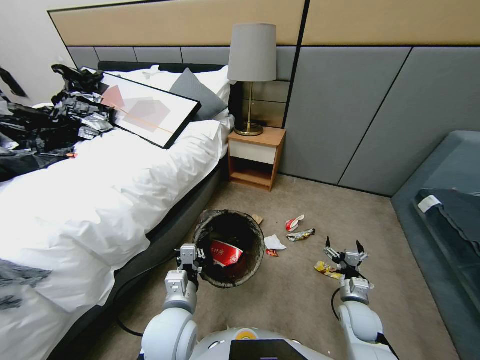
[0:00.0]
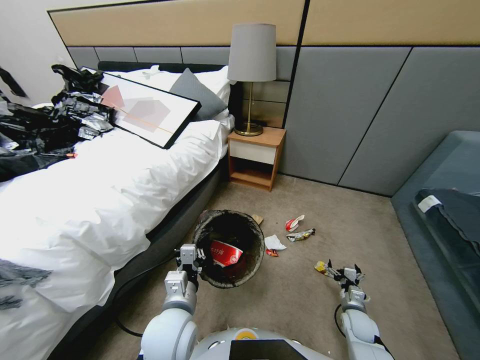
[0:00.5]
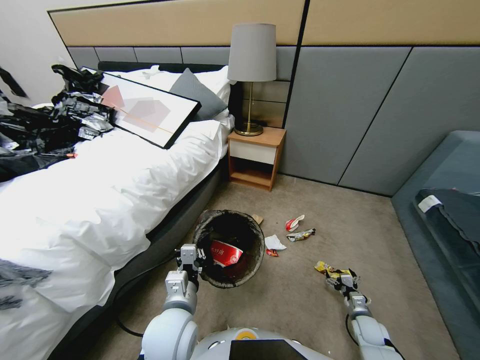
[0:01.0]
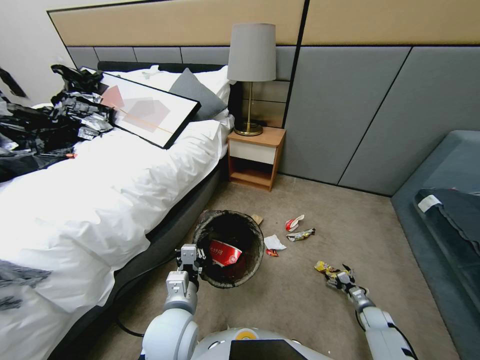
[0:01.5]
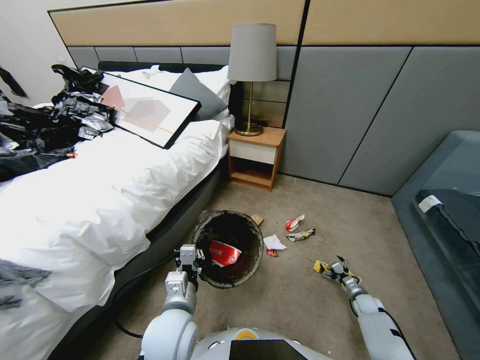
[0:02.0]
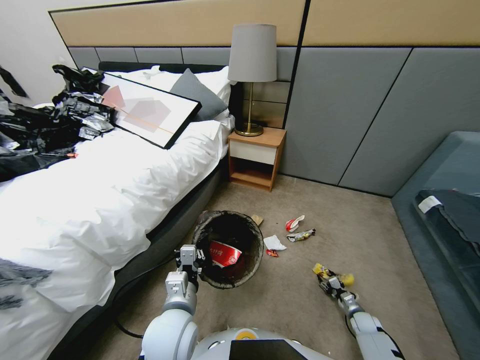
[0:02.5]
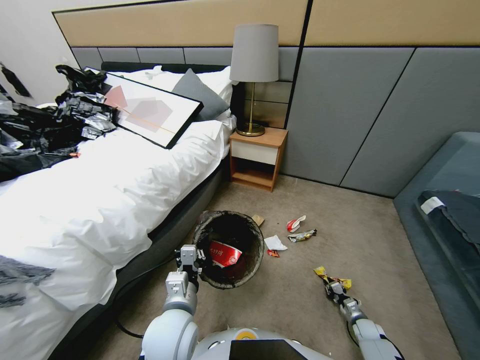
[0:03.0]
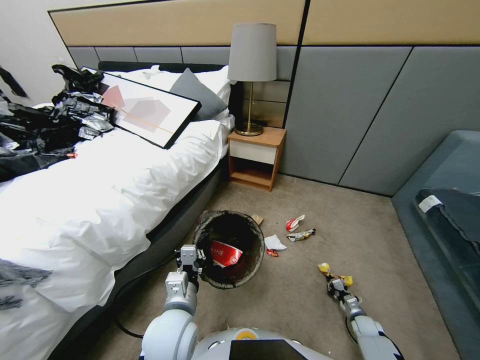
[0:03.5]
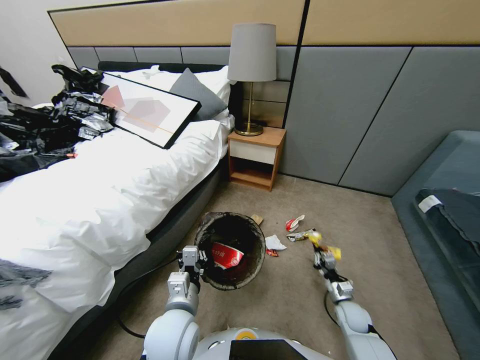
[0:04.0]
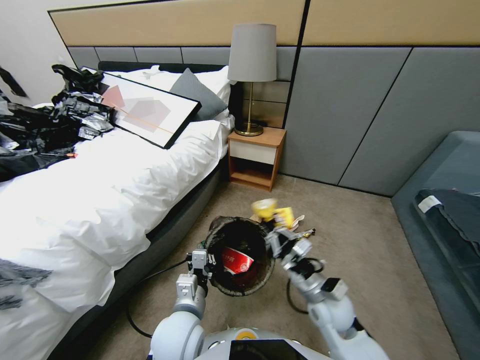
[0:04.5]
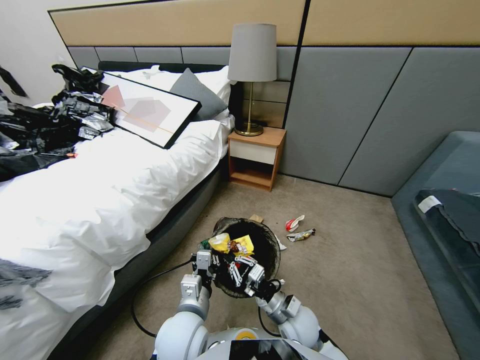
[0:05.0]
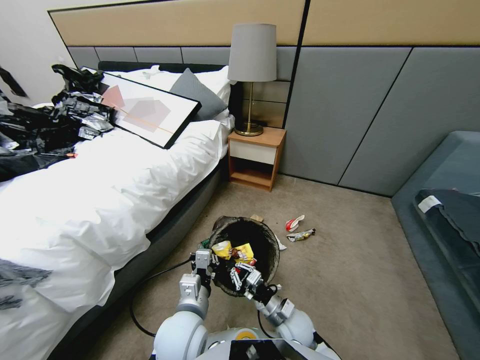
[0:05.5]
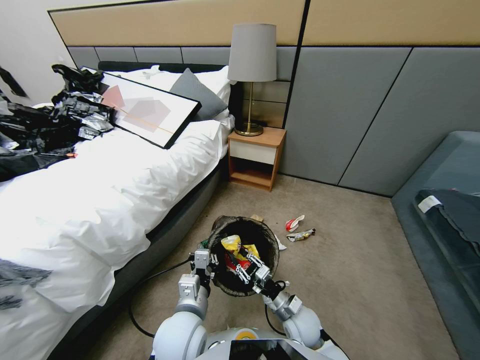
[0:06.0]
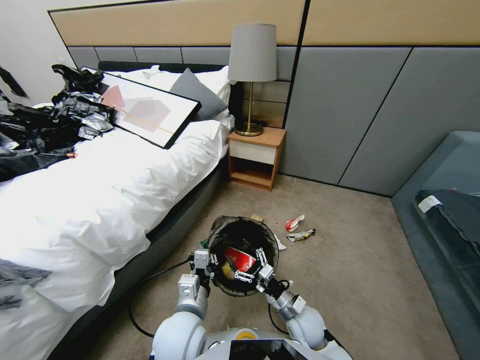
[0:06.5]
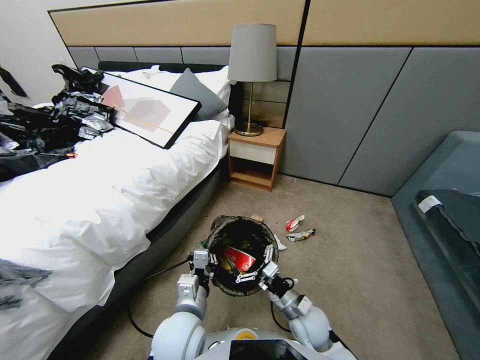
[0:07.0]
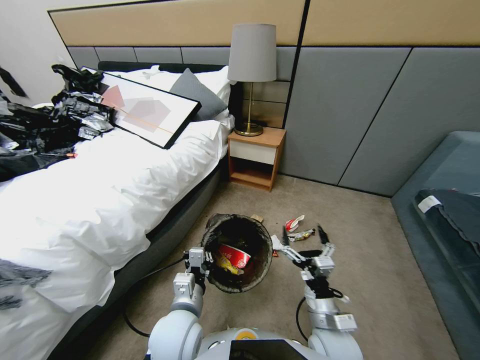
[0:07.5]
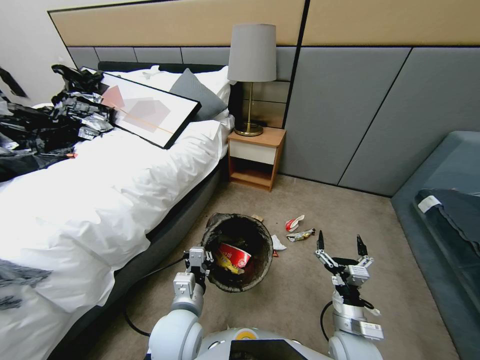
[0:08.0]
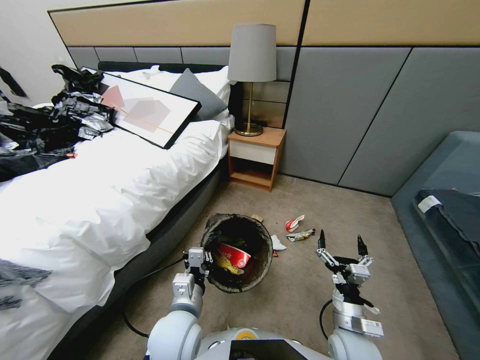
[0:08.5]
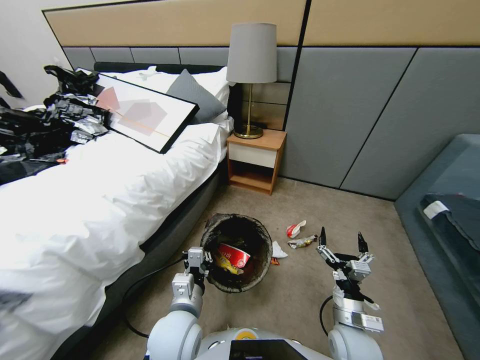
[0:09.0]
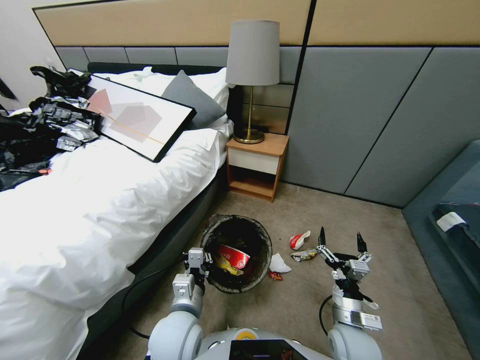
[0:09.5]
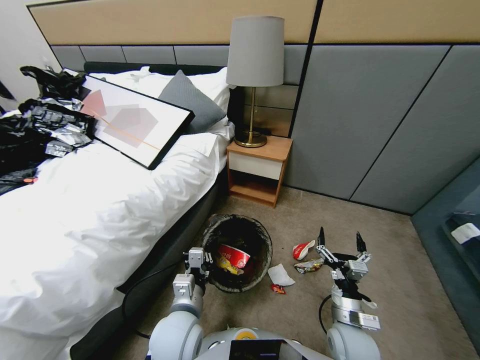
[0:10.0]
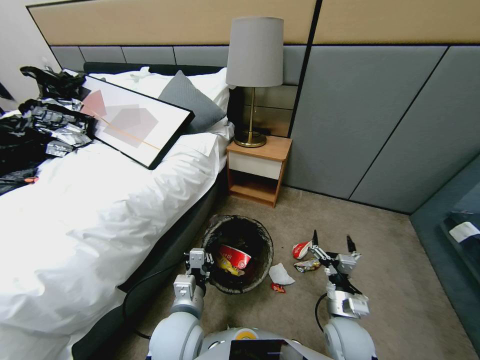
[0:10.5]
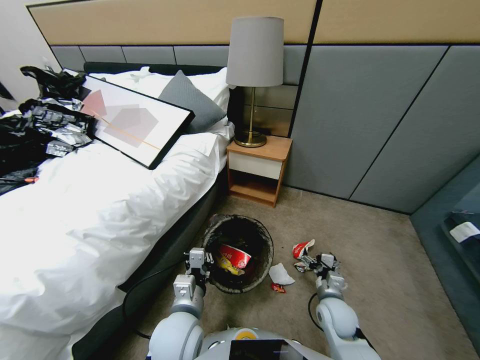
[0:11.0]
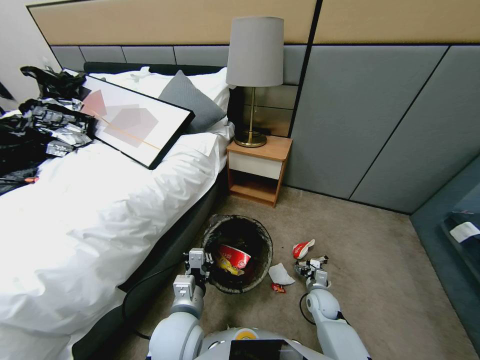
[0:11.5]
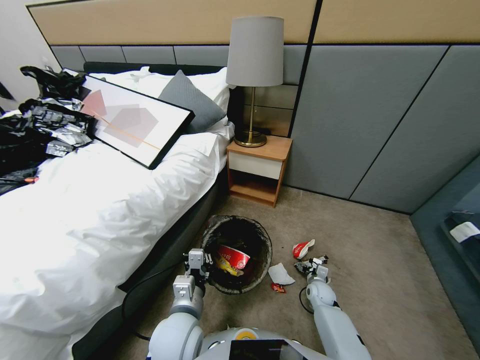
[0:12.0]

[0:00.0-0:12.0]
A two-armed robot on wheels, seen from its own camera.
Task of the whole recording: Pick up the trash bin, then pick up the garbage from the floor and place it into the trash bin.
0:00.0 to 0:02.0: The right gripper travels downward and to the right by roughly 20 cm.
0:02.0 to 0:04.0: The right gripper moves to the left and upward, some 25 cm, and closes.
0:04.0 to 0:06.0: The right gripper heads to the left, covering roughly 15 cm, and opens up.
0:06.0 to 0:08.0: The right gripper shifts about 10 cm to the right, backward and upward, and opens.
0:10.0 to 0:12.0: The right gripper goes about 25 cm downward and forward.

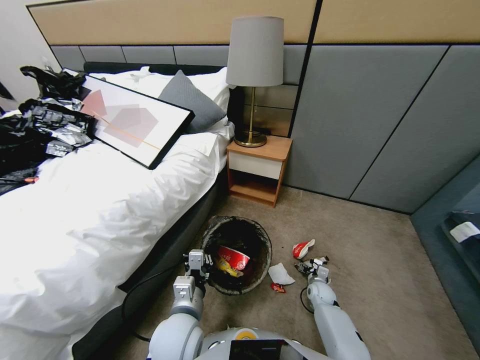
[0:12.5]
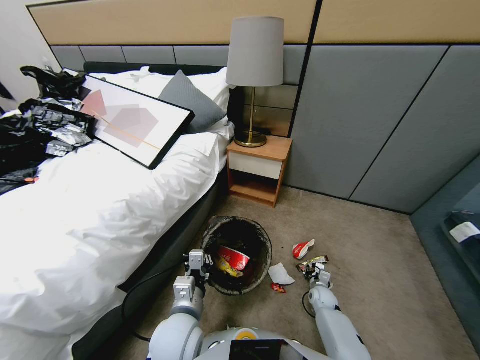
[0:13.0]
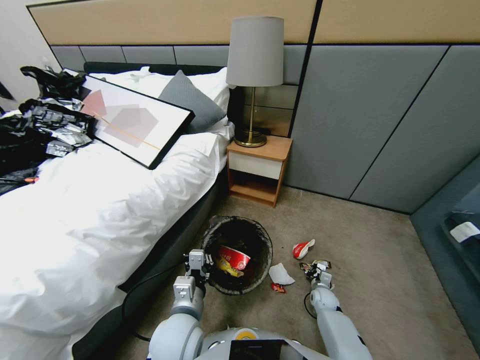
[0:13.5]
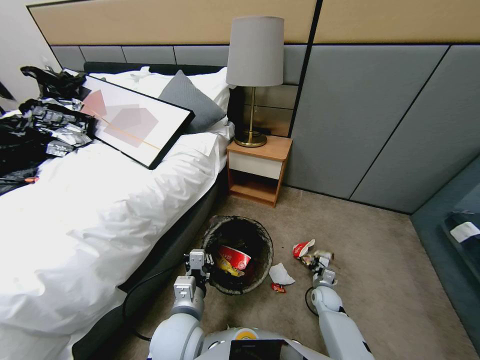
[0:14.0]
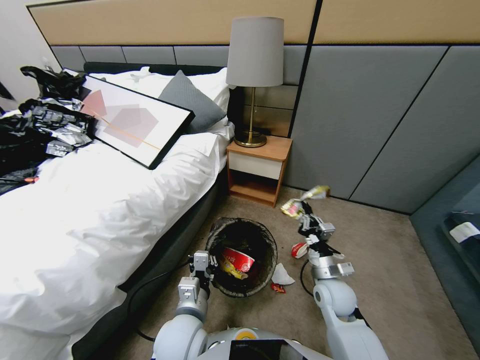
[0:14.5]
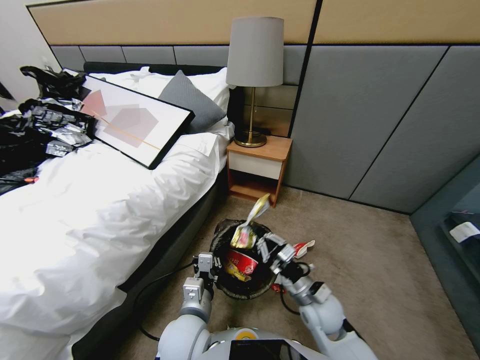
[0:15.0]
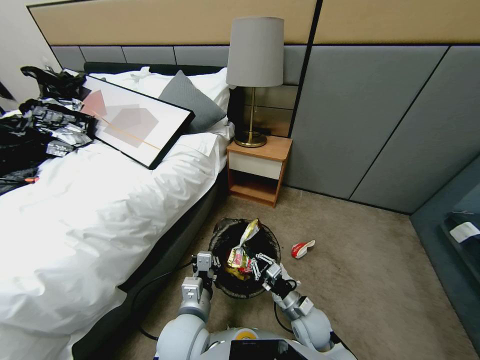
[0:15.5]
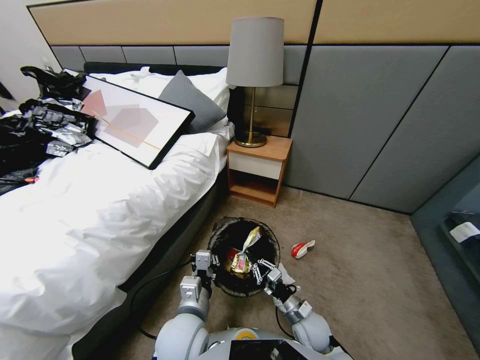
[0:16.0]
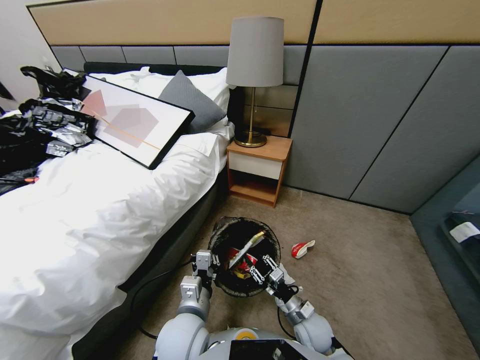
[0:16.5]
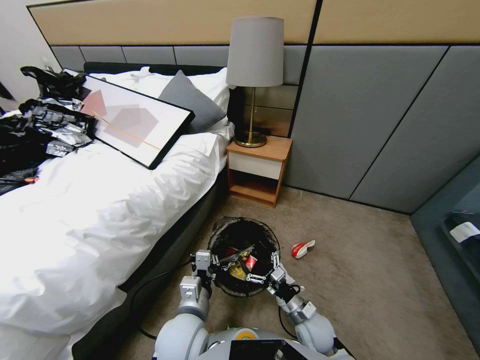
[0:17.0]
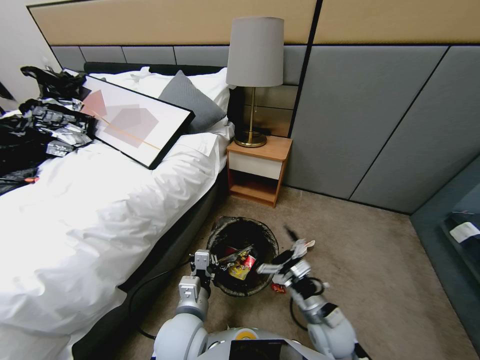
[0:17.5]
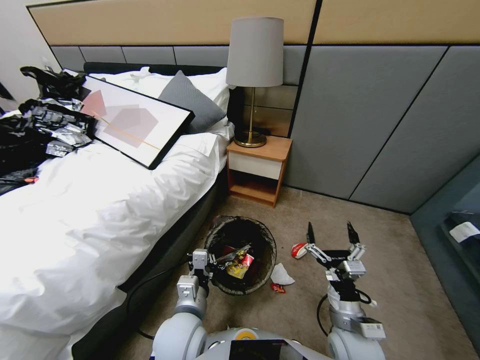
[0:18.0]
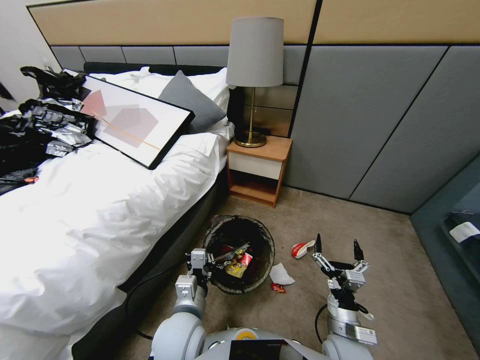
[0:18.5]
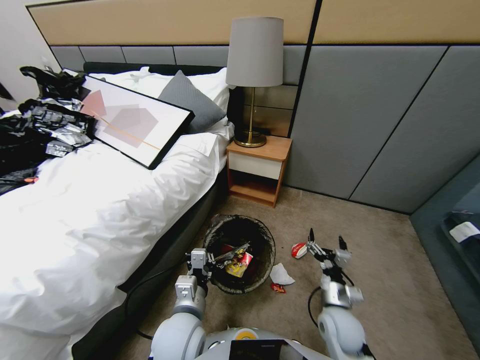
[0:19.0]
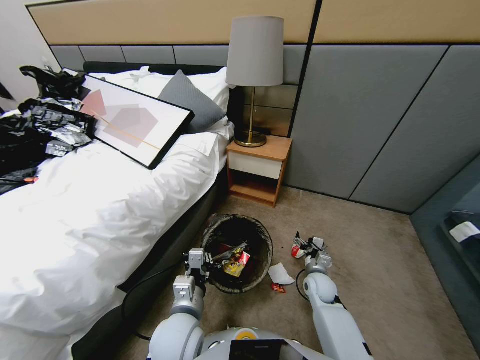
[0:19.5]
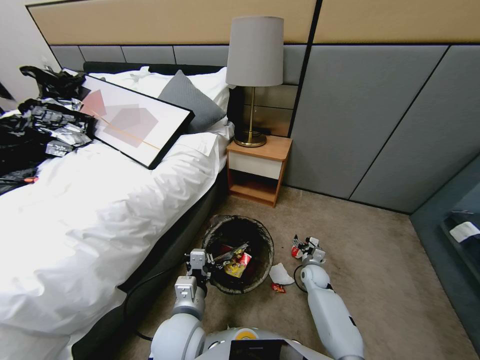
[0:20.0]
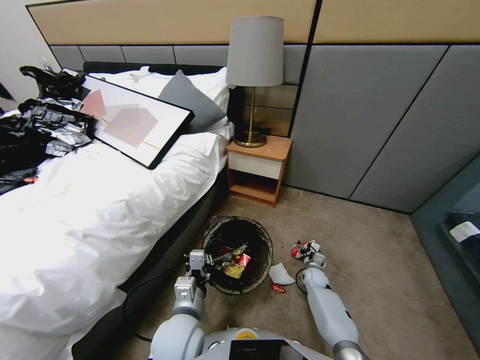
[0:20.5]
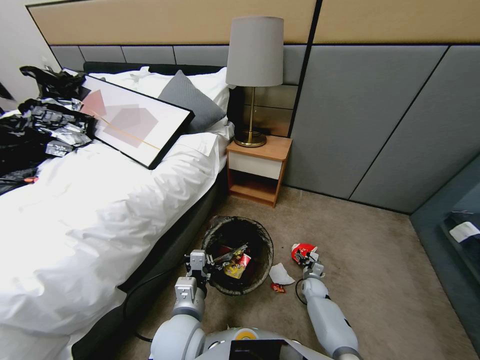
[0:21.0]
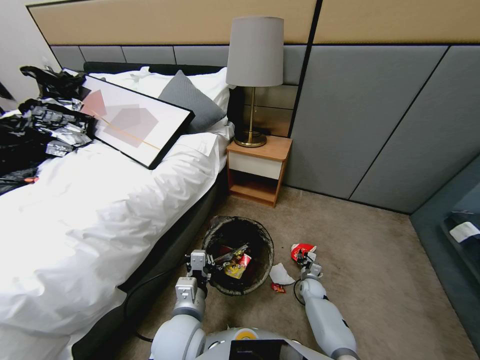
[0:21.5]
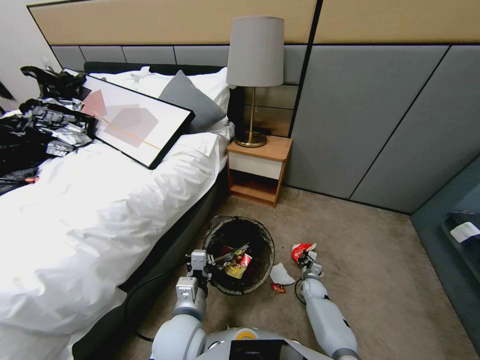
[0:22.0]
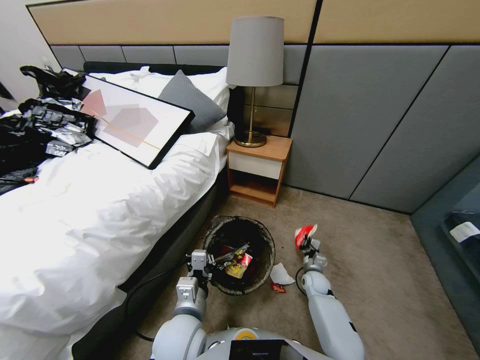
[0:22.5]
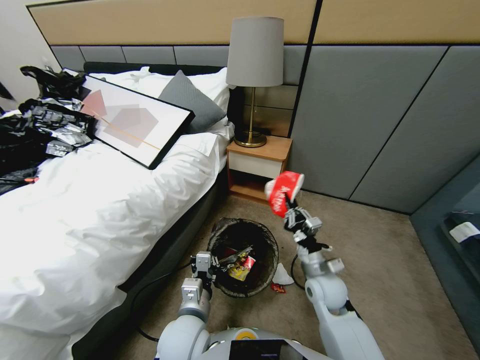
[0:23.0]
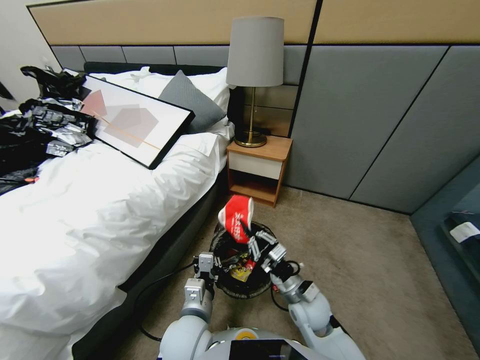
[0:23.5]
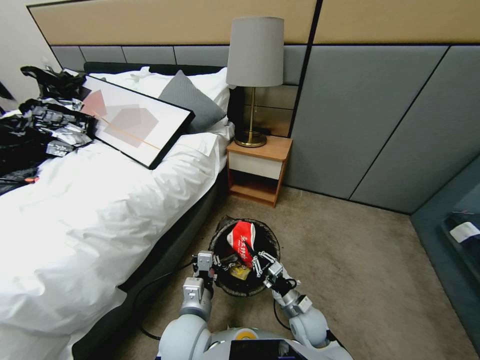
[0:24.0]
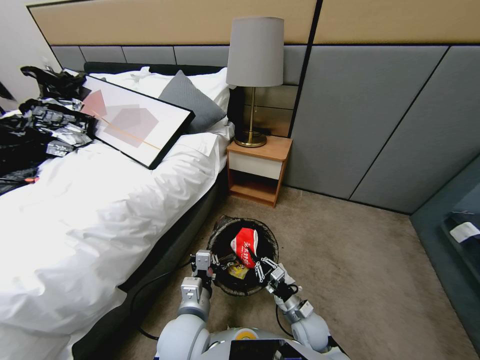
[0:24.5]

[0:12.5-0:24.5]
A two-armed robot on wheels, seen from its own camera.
Task of the whole recording: Pick up the trash bin, then pick up the garbage from the floor and place it into the trash bin.
0:12.5 to 0:14.5: The right gripper moves upward, approximately 25 cm, and closes.
0:14.5 to 0:16.5: The right gripper heads downward, covering about 15 cm, and opens its fingers.
0:16.5 to 0:18.5: The right gripper is displaced upward and backward by approximately 10 cm, and opens its fingers.
0:18.5 to 0:20.5: The right gripper moves forward and downward, approximately 30 cm.
0:20.5 to 0:22.5: The right gripper is displaced upward by some 10 cm, and closes up.
0:22.5 to 0:24.5: The right gripper travels backward and to the left by about 15 cm, and goes upward and returns, some 15 cm each way.

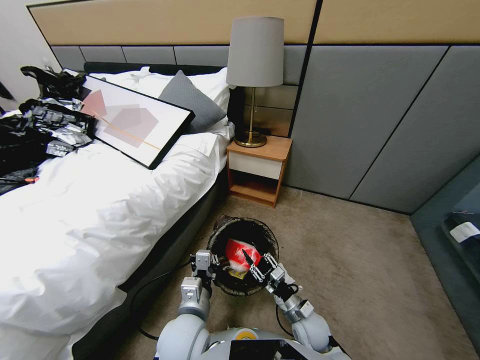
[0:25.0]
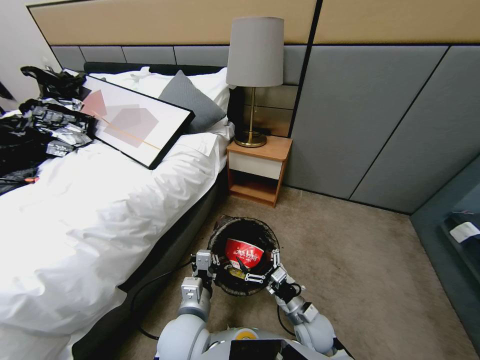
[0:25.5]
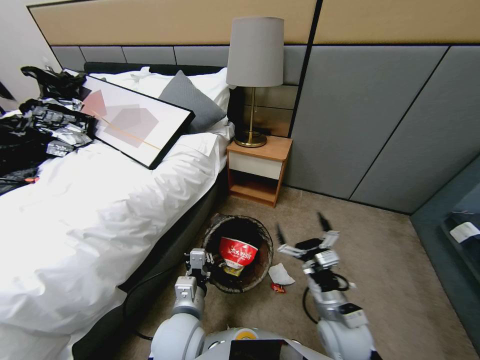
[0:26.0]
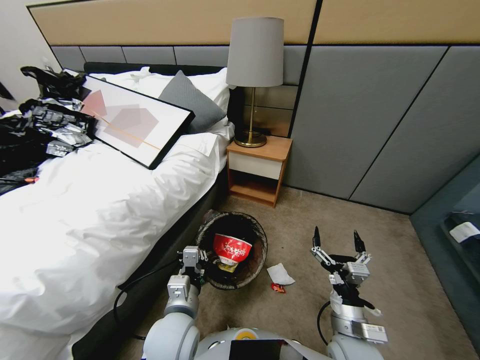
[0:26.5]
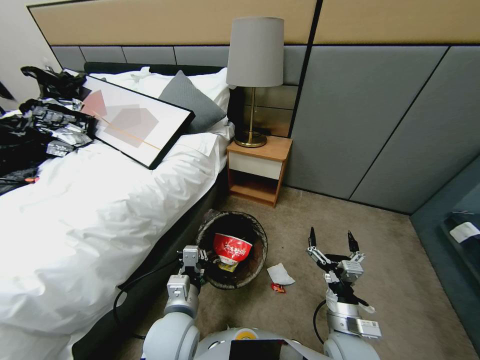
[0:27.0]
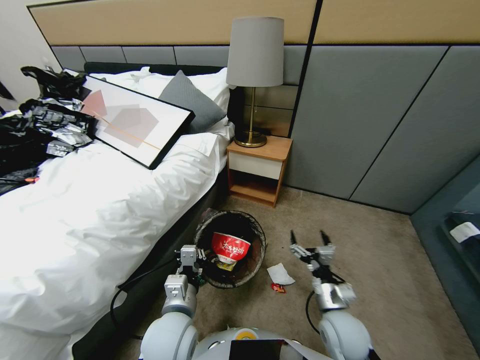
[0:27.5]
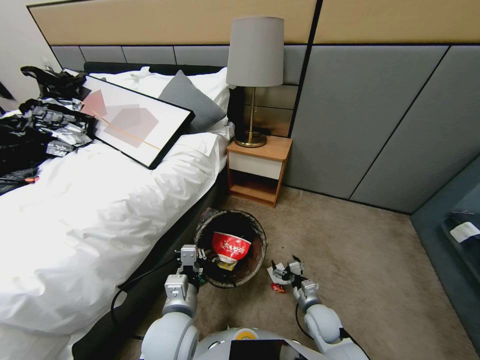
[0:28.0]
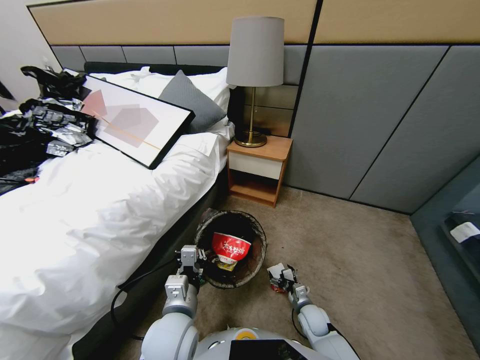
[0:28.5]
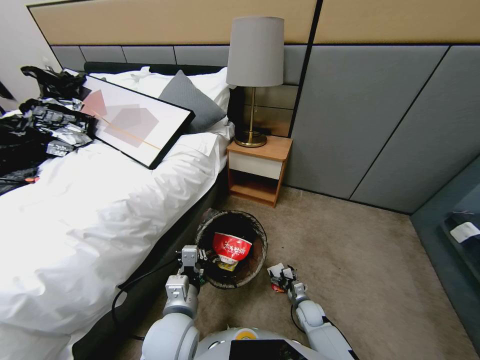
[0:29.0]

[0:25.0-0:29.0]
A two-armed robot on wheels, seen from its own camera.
Task of the whole recording: Pick up the trash bin, then pick up the garbage from the floor and place it into the trash bin.
0:25.0 to 0:27.0: The right gripper goes roughly 15 cm upward and backward, and opens up.
0:27.0 to 0:29.0: The right gripper shifts roughly 30 cm downward and forward.
